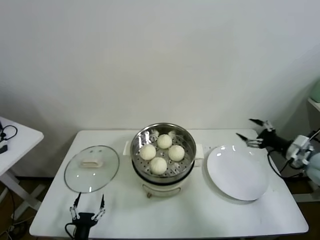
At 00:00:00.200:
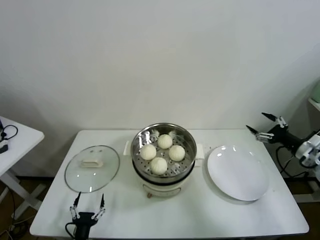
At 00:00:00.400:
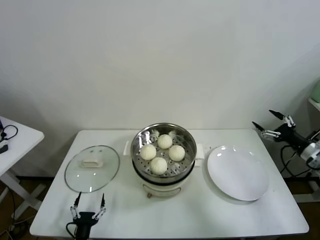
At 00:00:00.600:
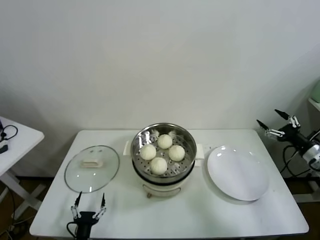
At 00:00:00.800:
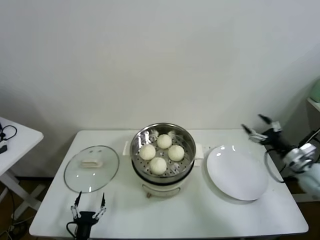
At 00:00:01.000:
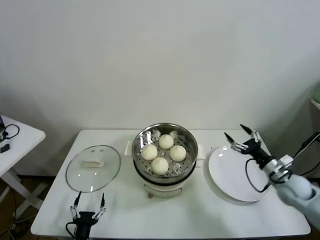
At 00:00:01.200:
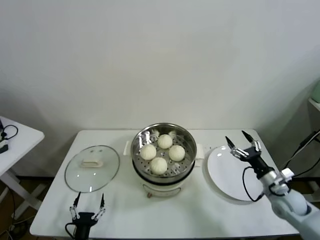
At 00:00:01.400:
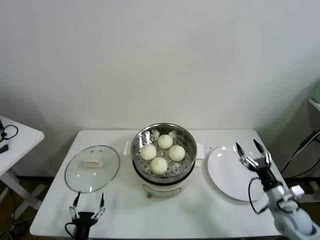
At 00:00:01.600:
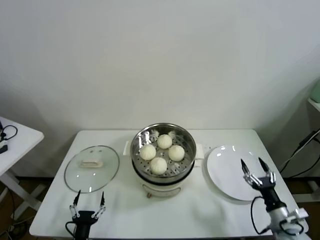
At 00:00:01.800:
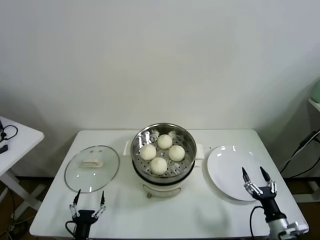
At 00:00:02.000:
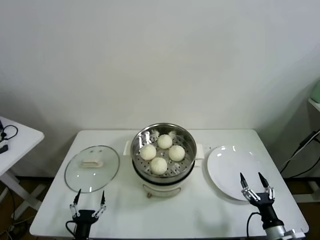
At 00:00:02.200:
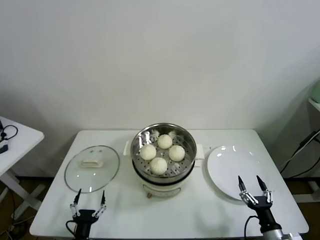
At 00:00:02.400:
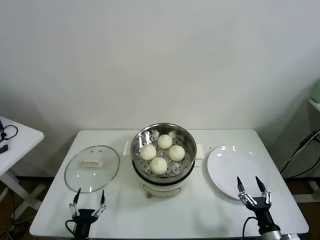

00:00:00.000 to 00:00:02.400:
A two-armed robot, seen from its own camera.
Task of the whole recording: take steamed baozi put them in steamer.
00:00:00.000 to 00:00:01.200: The right gripper travels downward and to the left by approximately 15 cm.
00:00:01.200 to 00:00:02.400: The right gripper shifts some 20 cm backward and downward.
